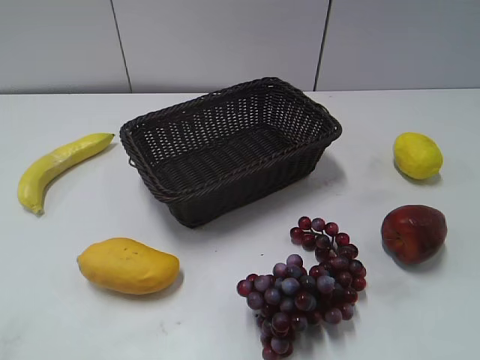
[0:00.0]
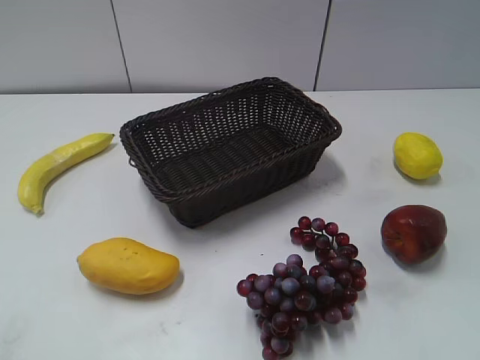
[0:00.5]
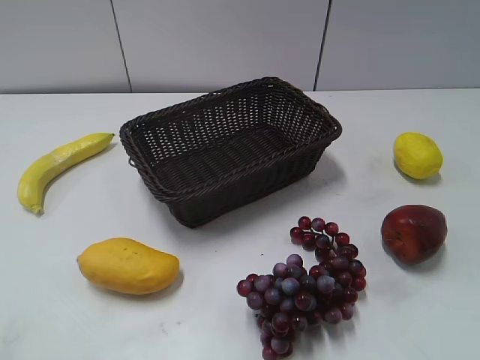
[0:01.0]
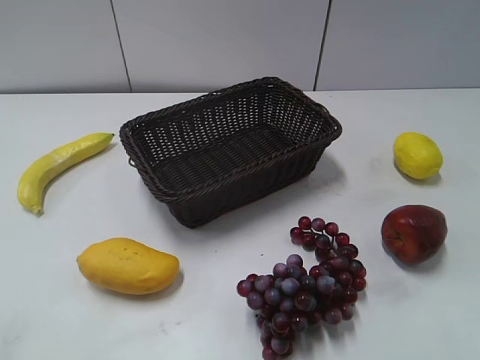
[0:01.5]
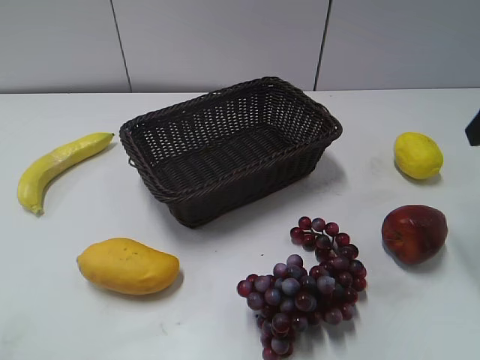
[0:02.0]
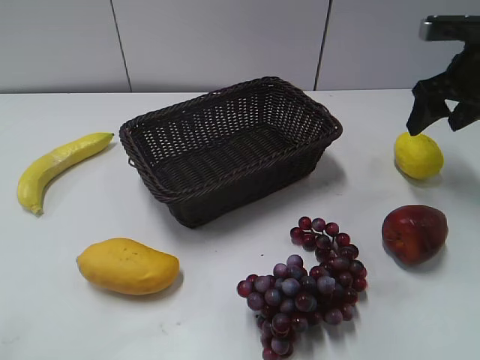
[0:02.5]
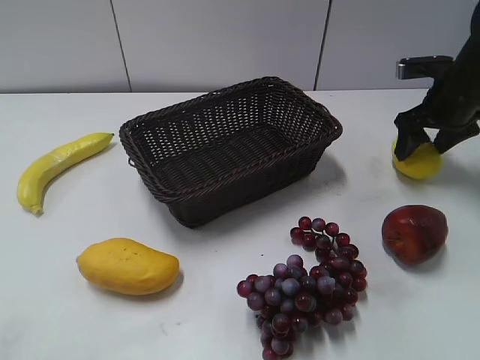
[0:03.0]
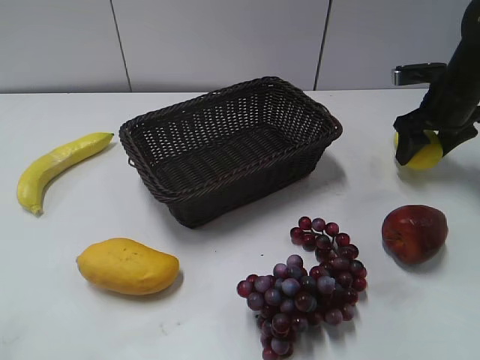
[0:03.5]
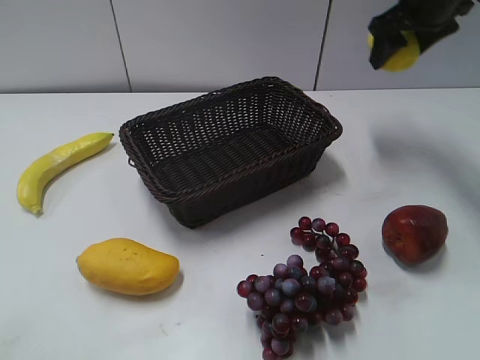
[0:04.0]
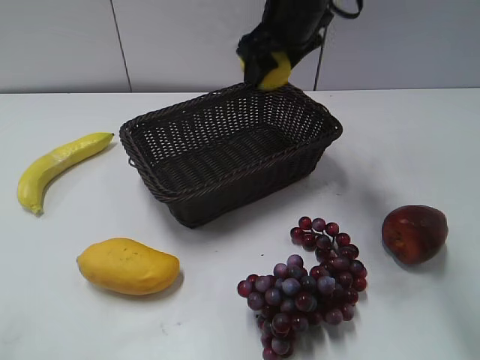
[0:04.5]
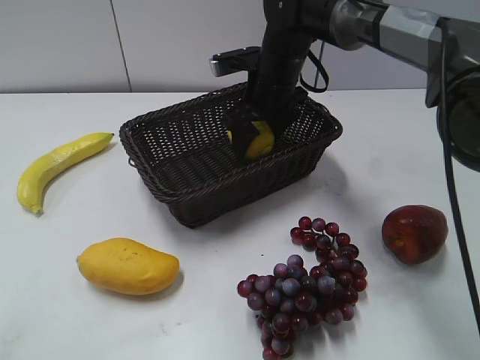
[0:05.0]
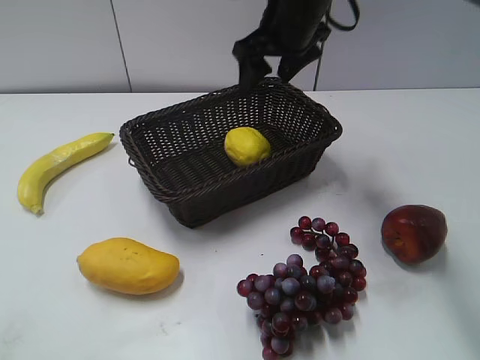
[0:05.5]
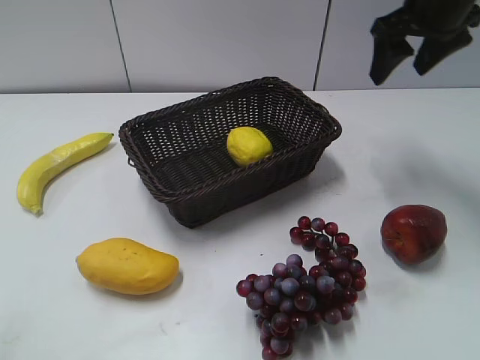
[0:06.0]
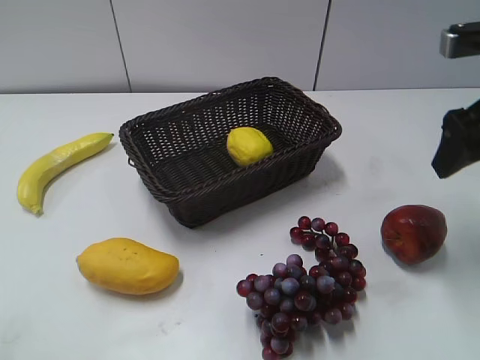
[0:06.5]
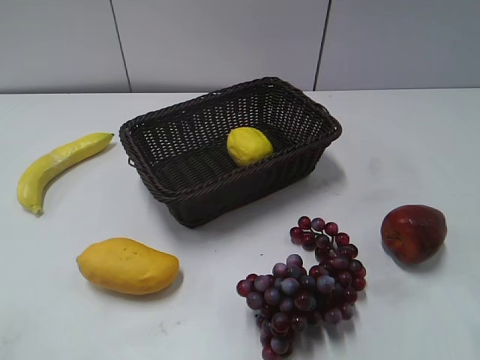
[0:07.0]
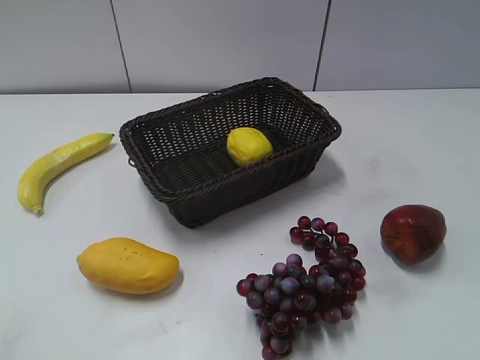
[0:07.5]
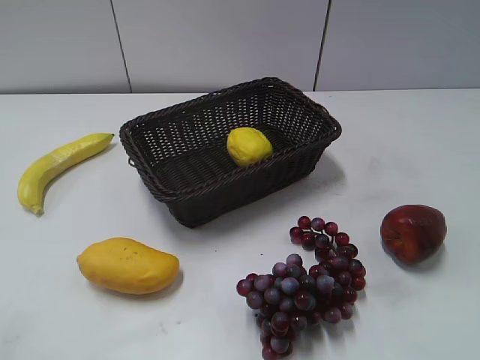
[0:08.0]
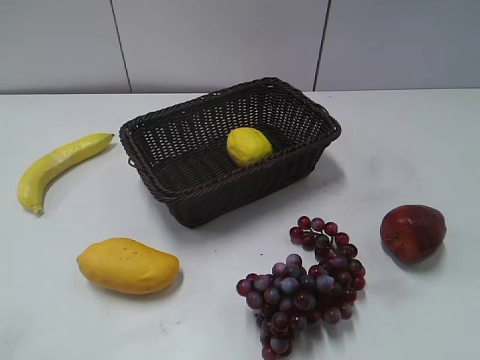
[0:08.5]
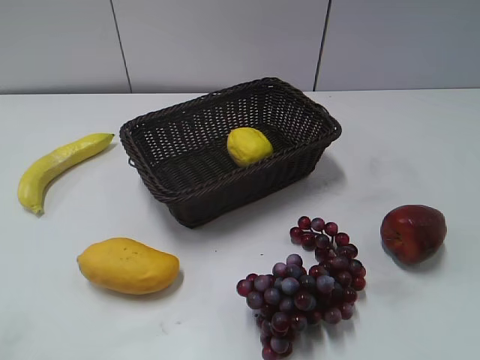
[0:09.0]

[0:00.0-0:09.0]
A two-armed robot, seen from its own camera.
Step, 0:02.0 to 0:03.0: Grasp the lemon with right gripper.
Step, 0:03.5 to 0:05.0: Place the lemon in the basket with right gripper.
0:02.0 to 0:04.5: The right gripper moves to the left and forward, approximately 30 cm.
0:04.5 to 0:07.0: The right gripper travels backward and to the right by some 35 cm.

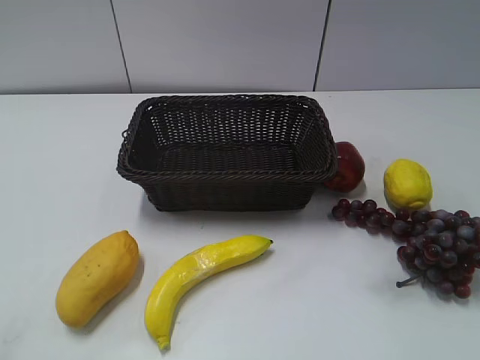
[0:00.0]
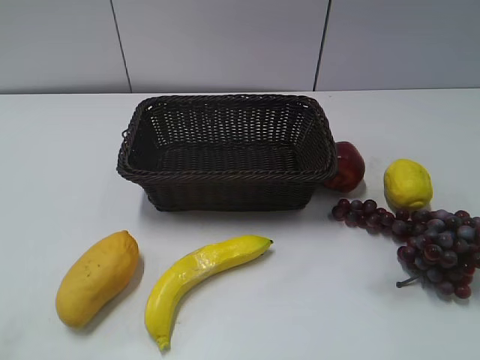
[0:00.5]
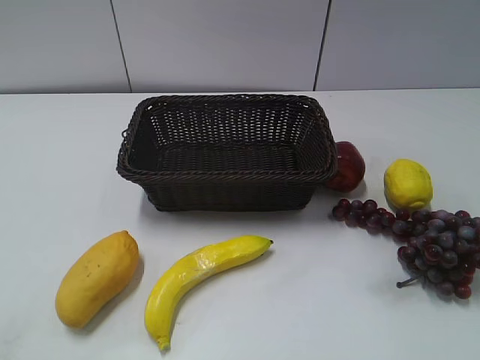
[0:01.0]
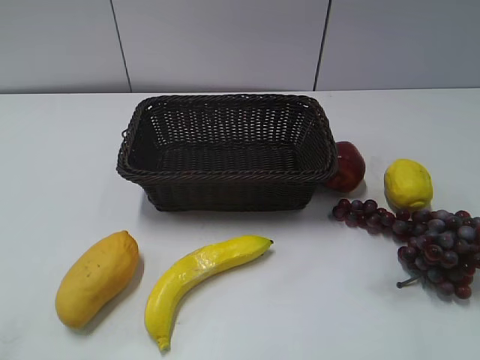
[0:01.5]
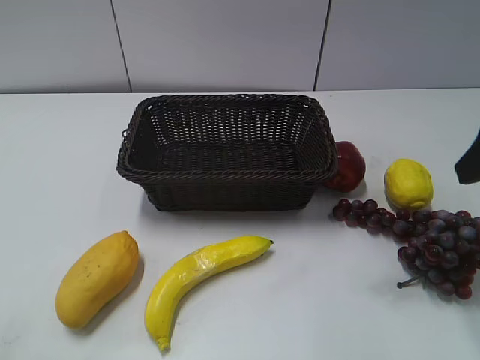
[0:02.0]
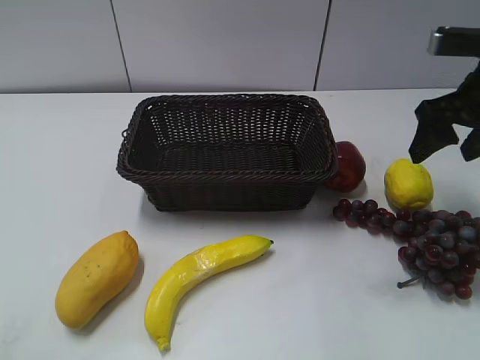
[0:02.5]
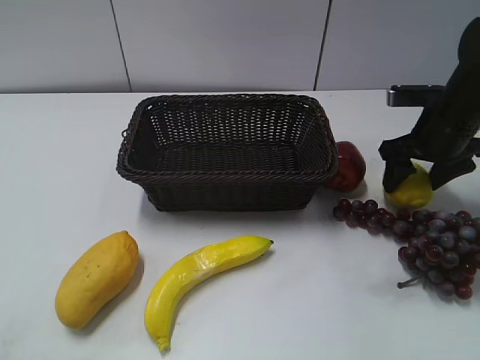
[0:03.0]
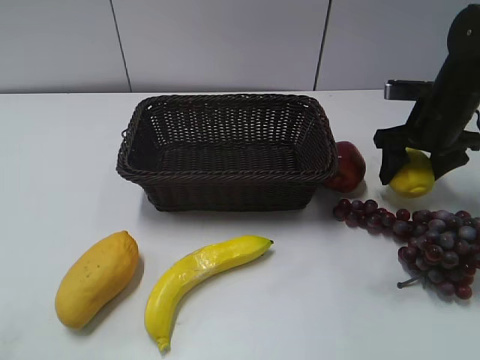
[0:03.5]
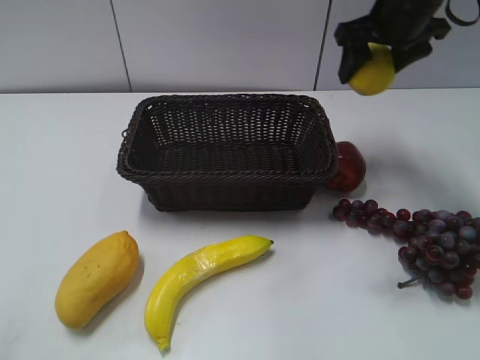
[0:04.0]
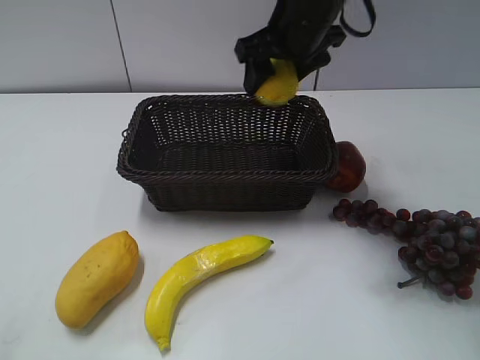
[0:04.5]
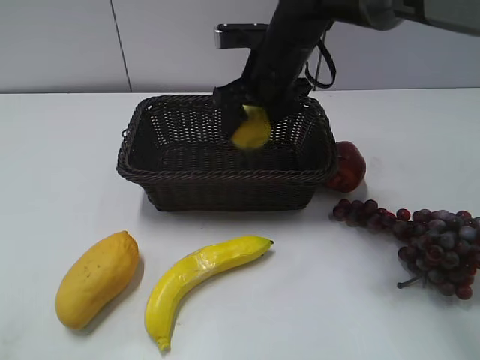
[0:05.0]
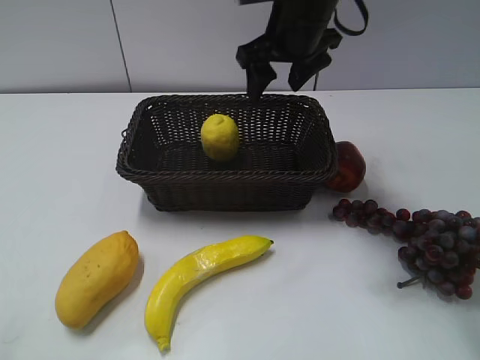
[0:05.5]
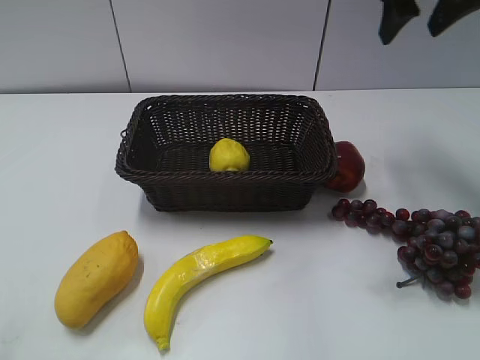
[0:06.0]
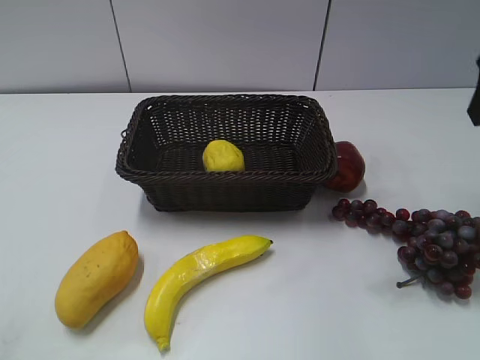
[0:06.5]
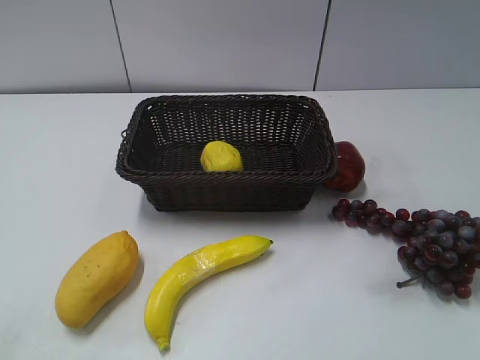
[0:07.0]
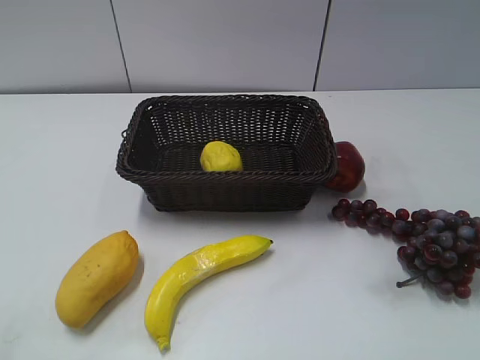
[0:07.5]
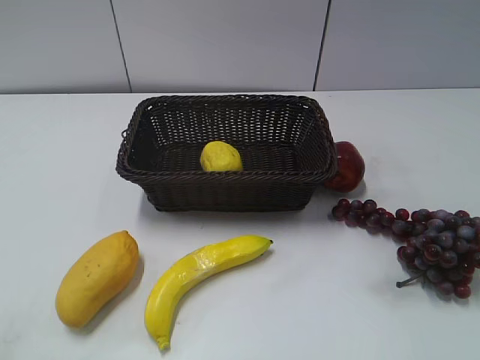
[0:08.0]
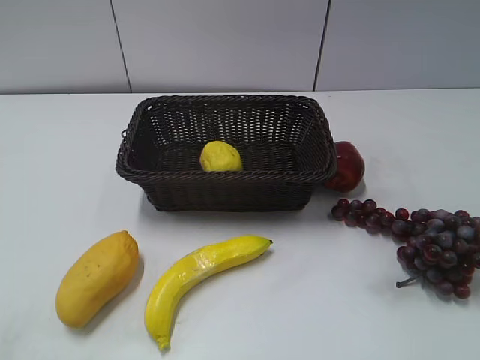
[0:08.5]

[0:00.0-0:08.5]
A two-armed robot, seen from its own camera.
Step, 0:02.0 to 0:03.5: Grasp the lemon with right gripper.
Step, 0:04.0 to 0:05.0: Place the lemon in the basket with right gripper.
0:02.0 to 0:04.0: The right gripper travels forward by approximately 20 cm.
0:04.0 to 0:06.5: The right gripper is displaced backward and to the right by approximately 20 cm.
